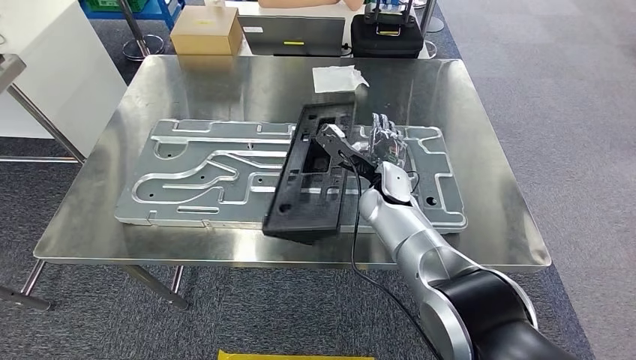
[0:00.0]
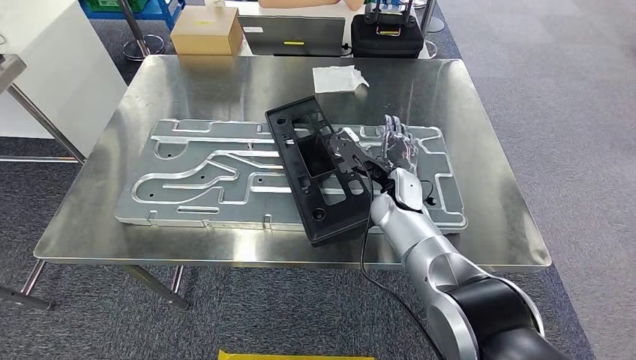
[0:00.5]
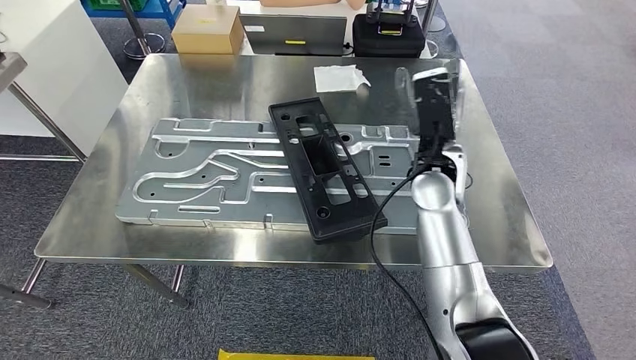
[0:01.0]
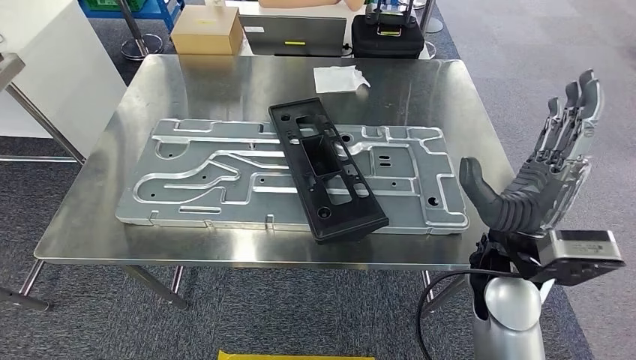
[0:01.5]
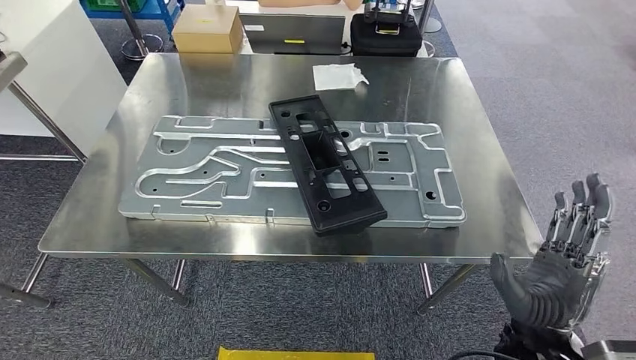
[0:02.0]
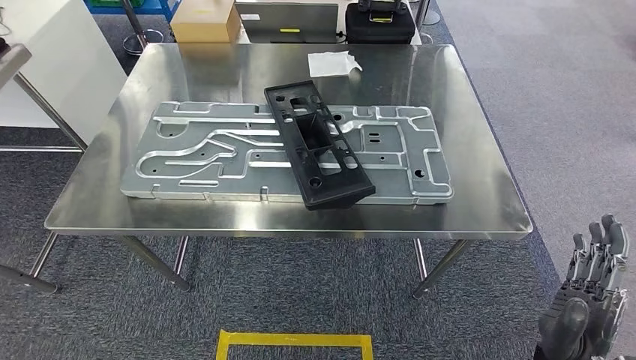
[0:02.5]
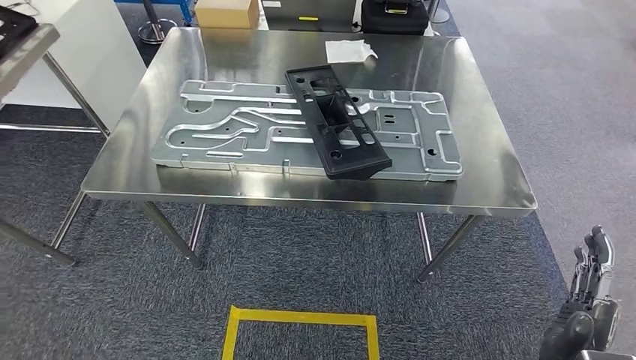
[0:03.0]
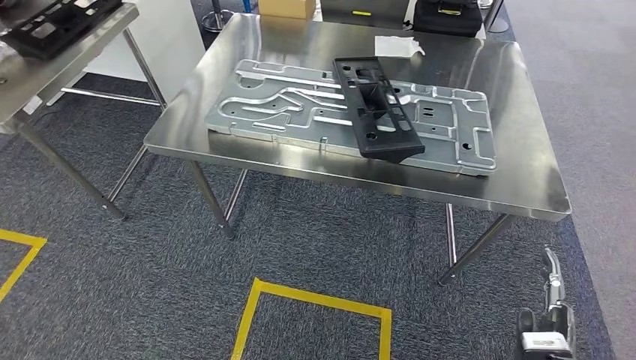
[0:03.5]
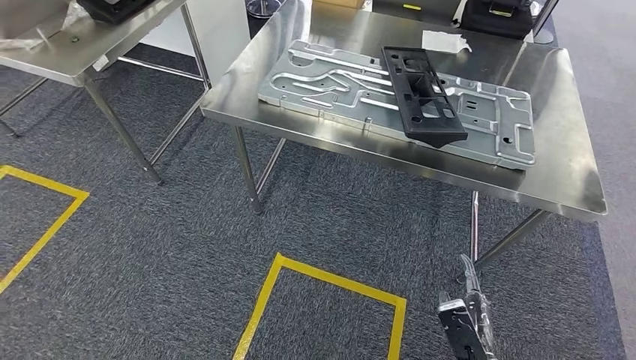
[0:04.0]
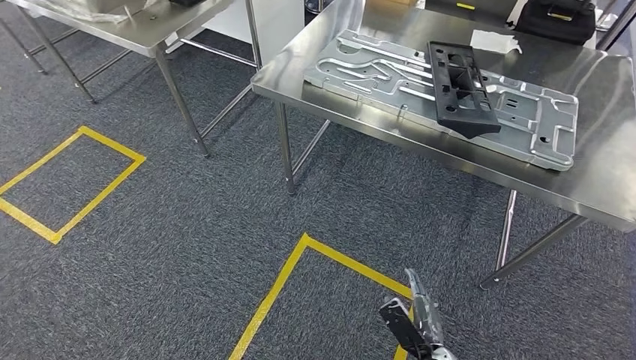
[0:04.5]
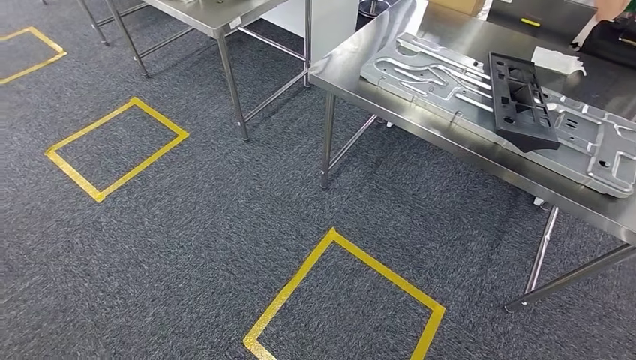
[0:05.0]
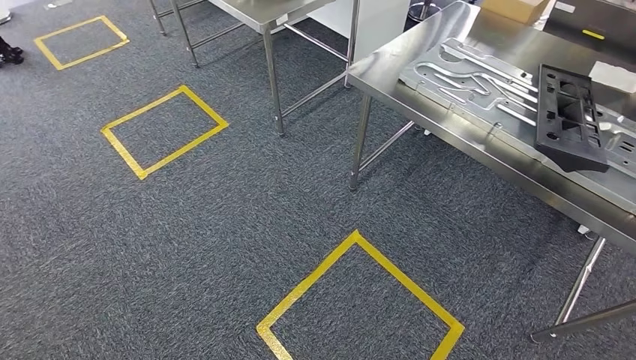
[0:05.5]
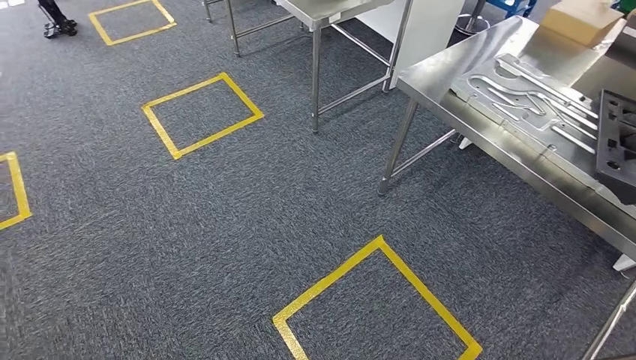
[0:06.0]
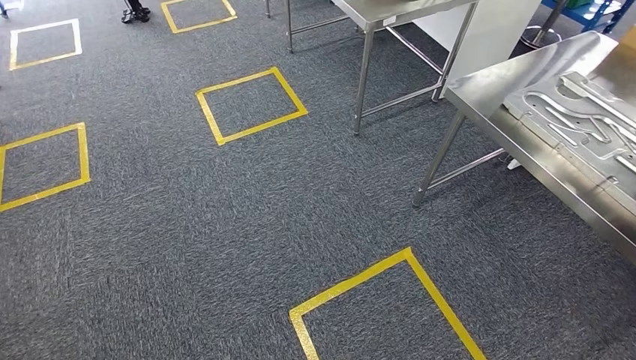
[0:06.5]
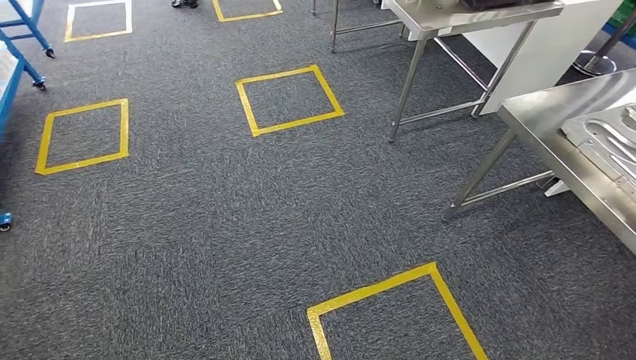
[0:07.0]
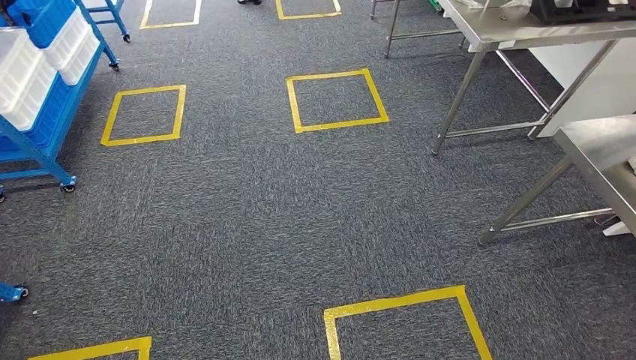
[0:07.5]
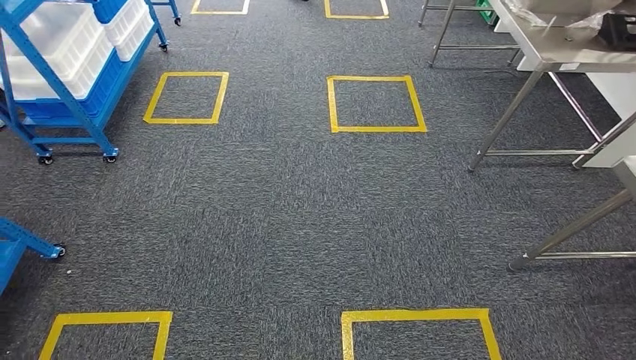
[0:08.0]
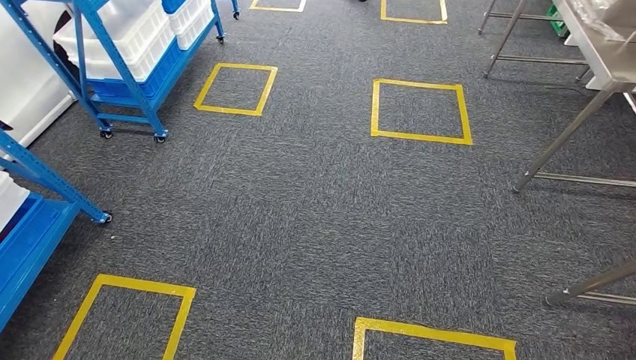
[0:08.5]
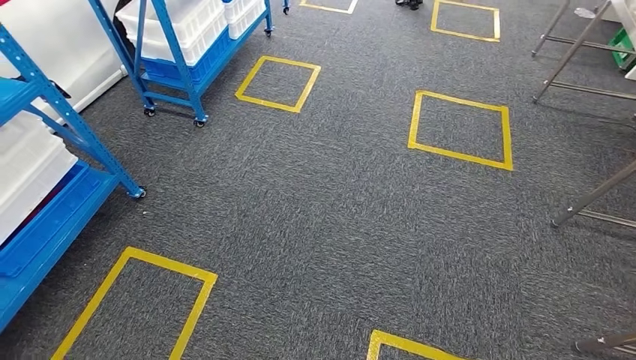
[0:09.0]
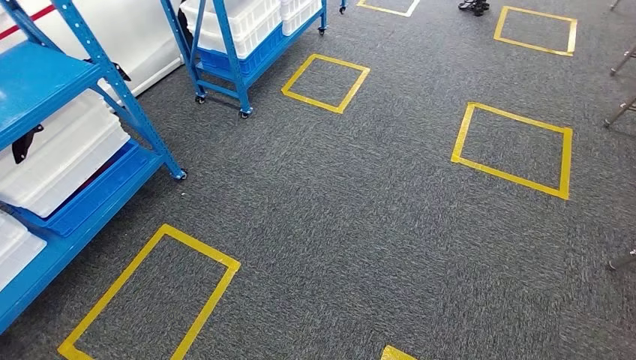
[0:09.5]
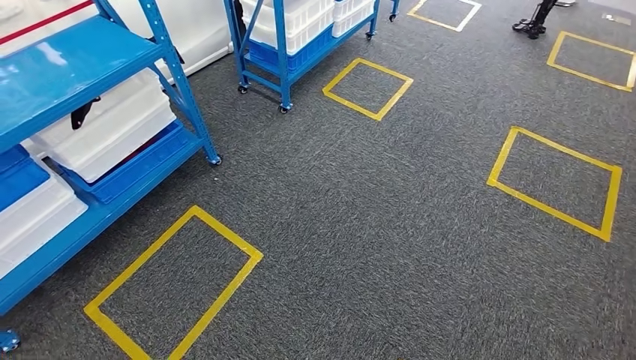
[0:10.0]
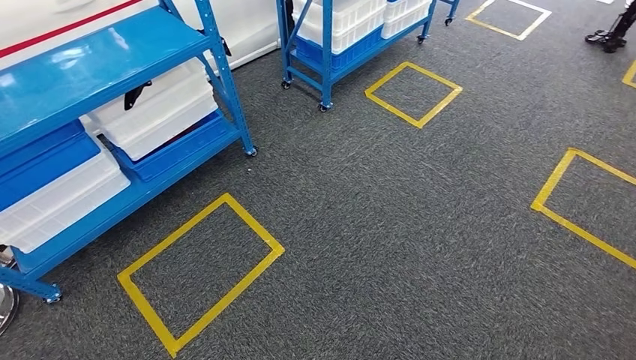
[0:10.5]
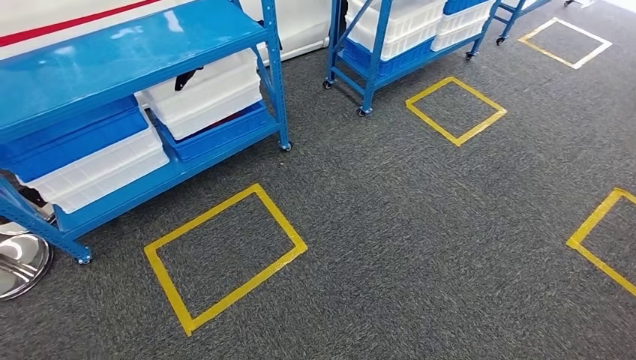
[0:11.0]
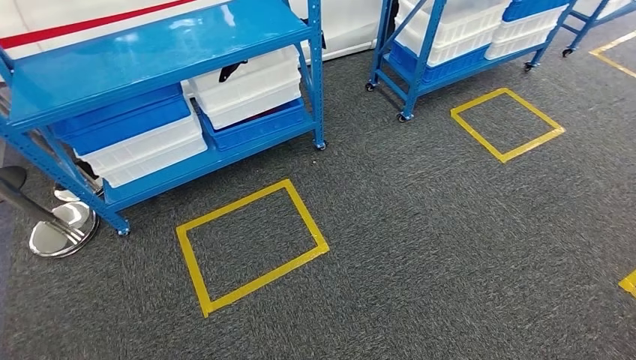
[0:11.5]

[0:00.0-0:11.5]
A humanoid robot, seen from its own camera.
Step, 0:00.0 to 0:03.0: Insert the large material into the corresponding slot on the workbench.

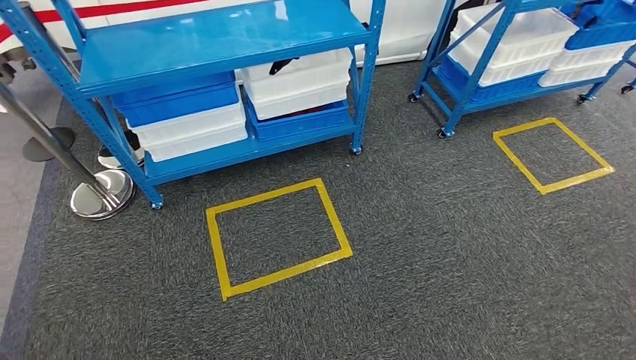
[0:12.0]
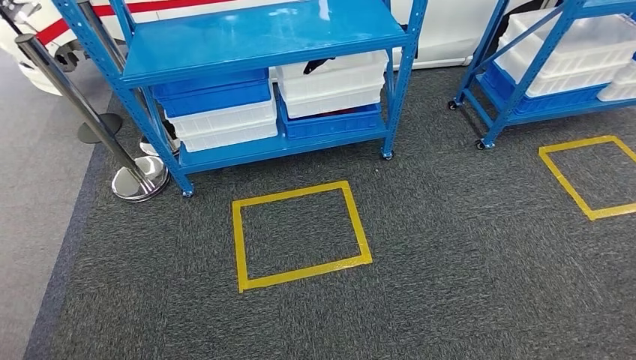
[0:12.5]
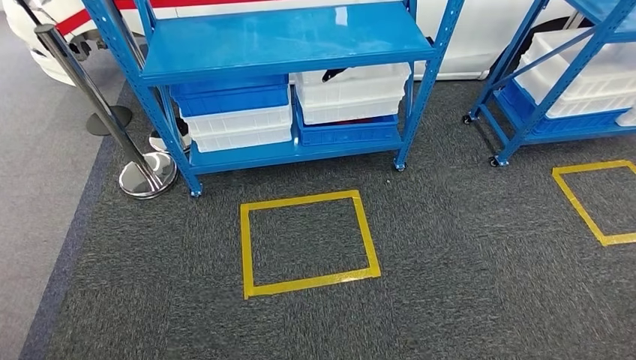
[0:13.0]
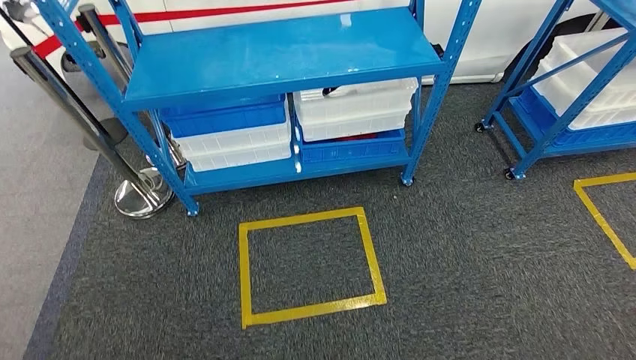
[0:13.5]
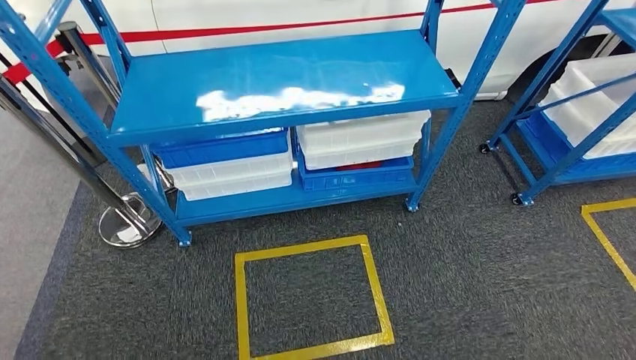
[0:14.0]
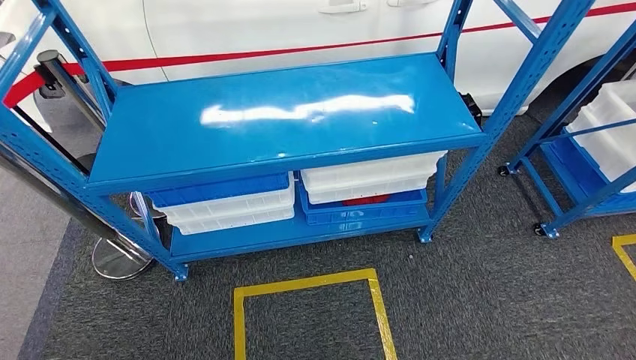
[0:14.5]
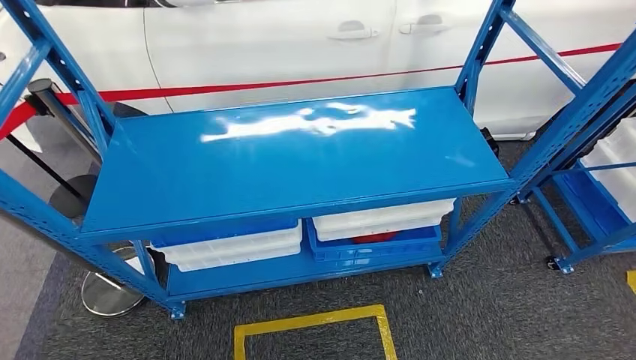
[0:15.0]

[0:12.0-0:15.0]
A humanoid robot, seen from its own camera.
Step, 0:12.0 to 0:15.0: Return to the initial position at the shelf.
